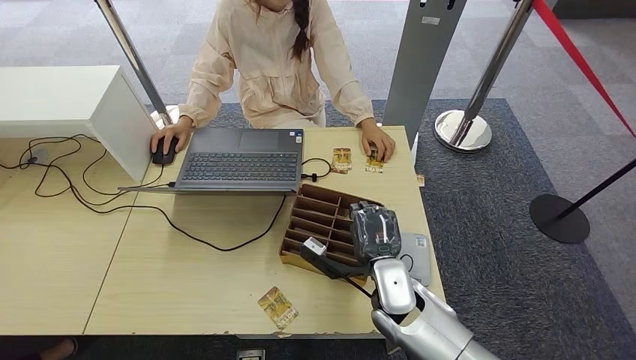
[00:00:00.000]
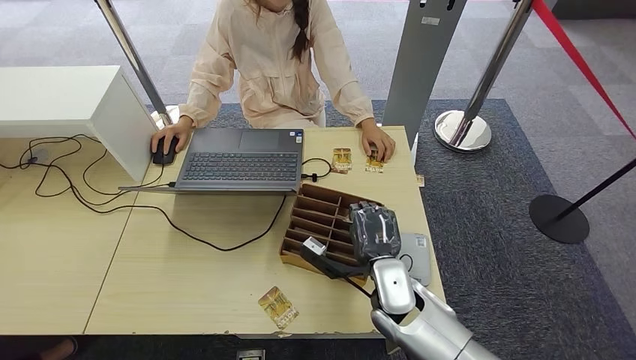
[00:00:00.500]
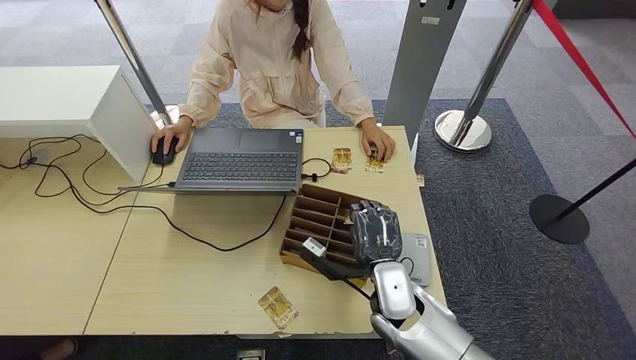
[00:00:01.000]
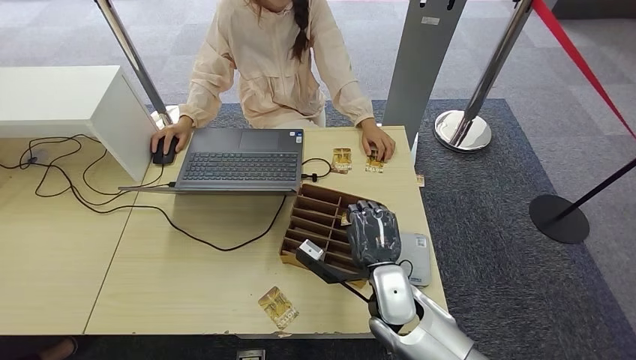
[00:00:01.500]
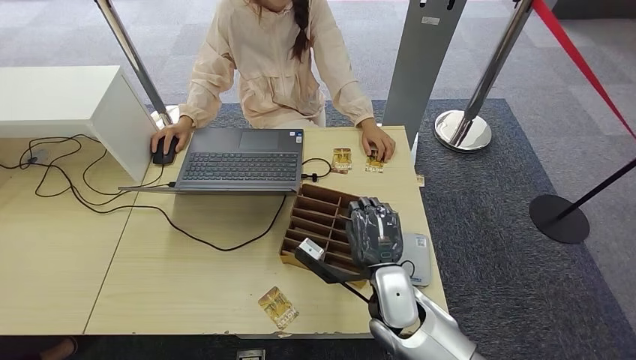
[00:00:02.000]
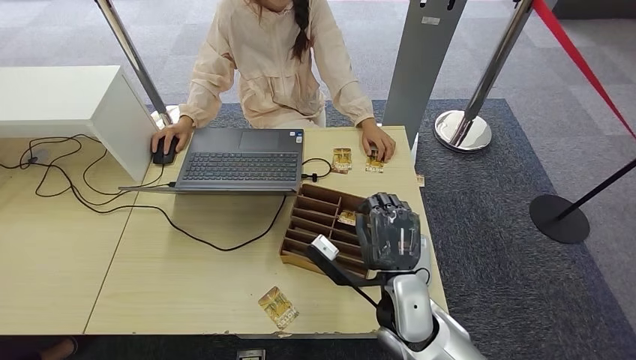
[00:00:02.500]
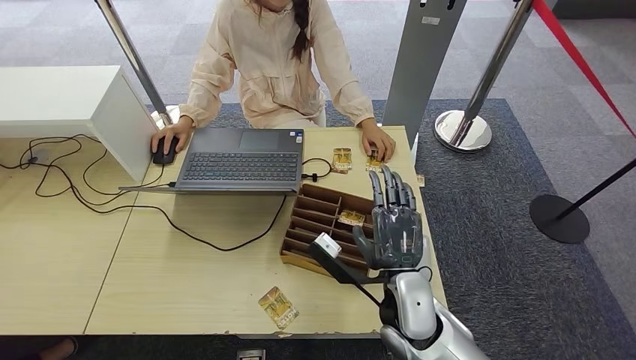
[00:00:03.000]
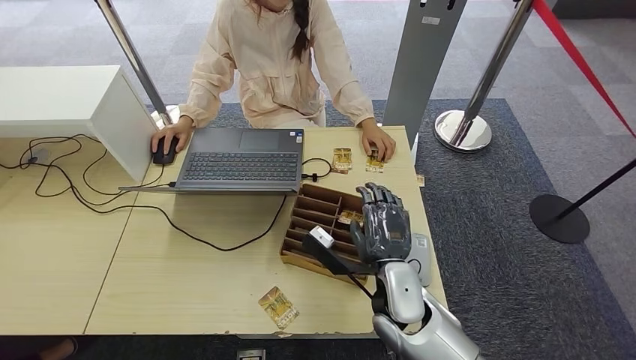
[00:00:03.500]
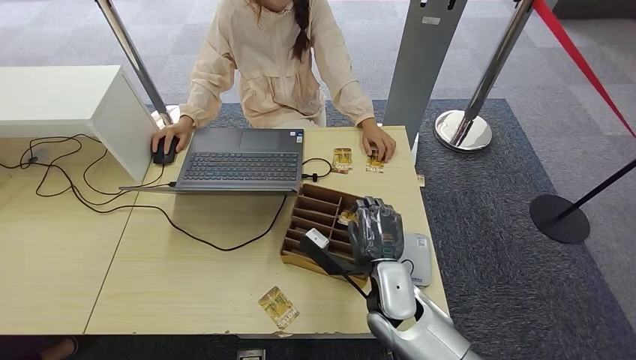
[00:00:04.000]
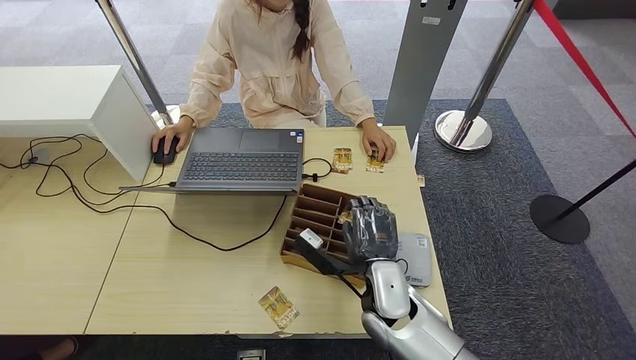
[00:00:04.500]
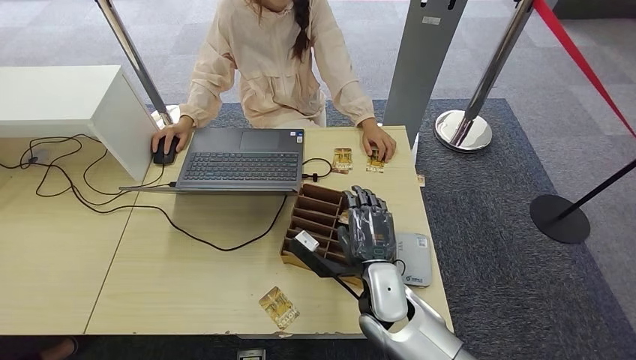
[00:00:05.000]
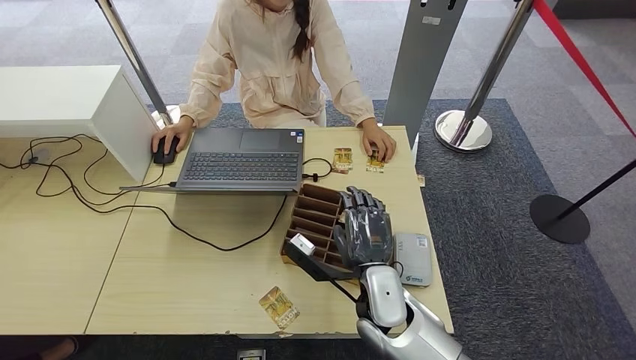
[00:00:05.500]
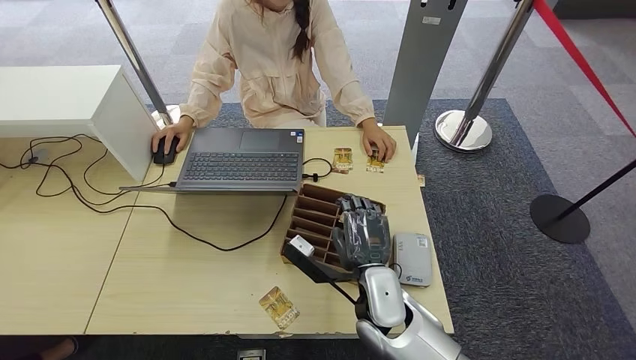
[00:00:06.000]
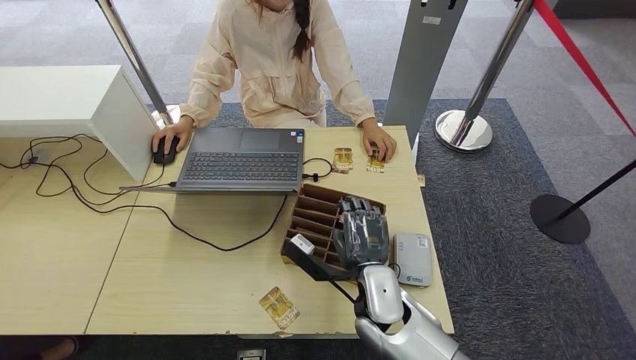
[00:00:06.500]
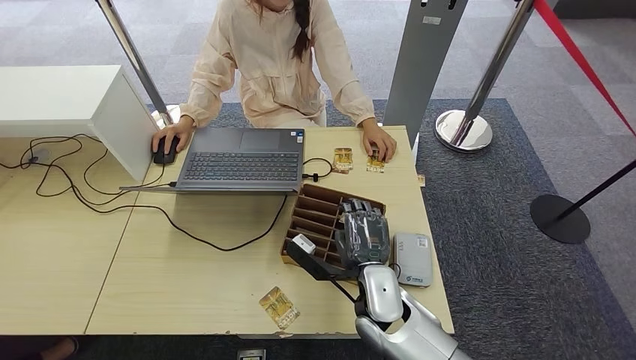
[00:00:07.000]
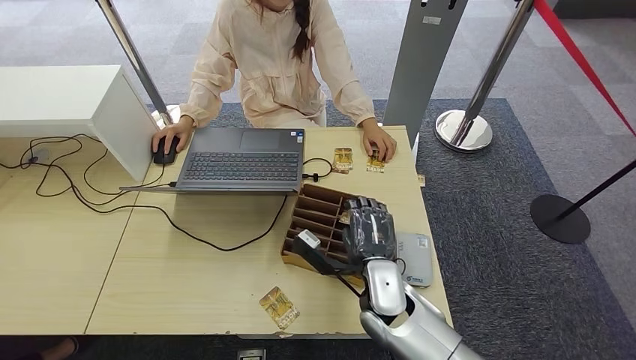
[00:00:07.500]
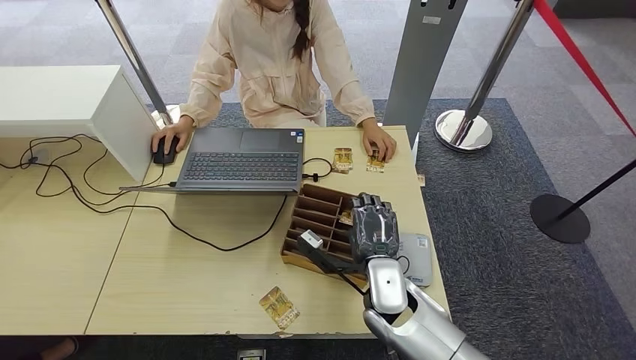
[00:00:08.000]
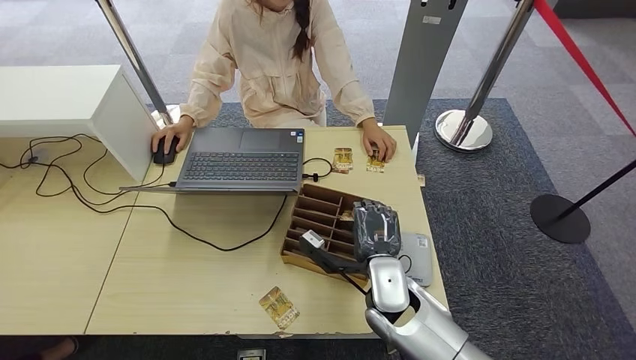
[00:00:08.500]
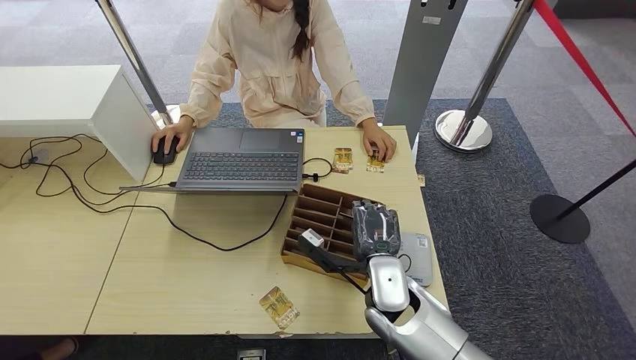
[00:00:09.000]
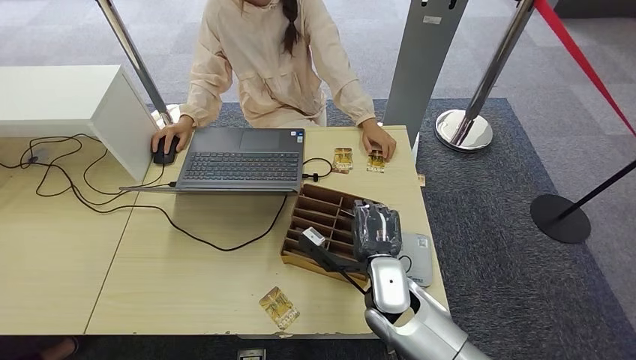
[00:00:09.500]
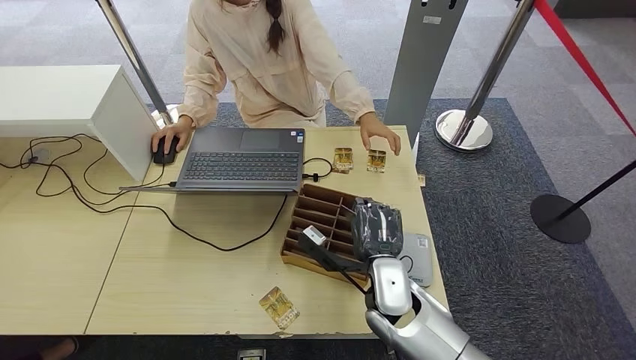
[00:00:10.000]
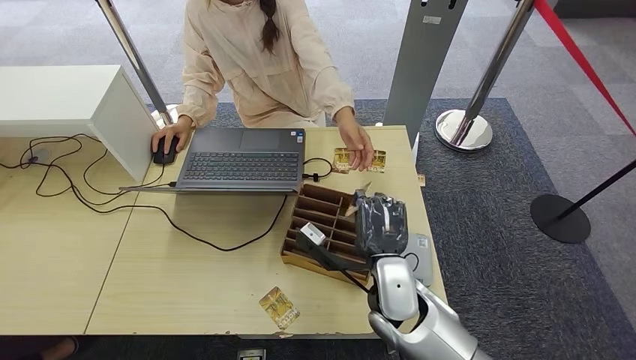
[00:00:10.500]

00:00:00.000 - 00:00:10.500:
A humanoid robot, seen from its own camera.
Step, 00:00:00.000 - 00:00:10.500: Pick up the room key from the key card box.
00:00:00.000 - 00:00:02.000: There are only small adjustments of the hands.
00:00:02.000 - 00:00:08.500: The hands move only a little.
00:00:08.500 - 00:00:10.500: There are only small adjustments of the hands.

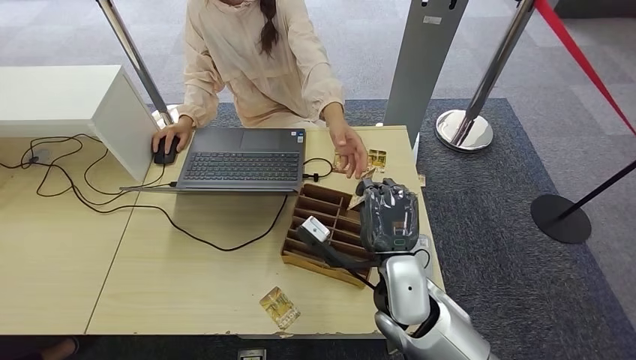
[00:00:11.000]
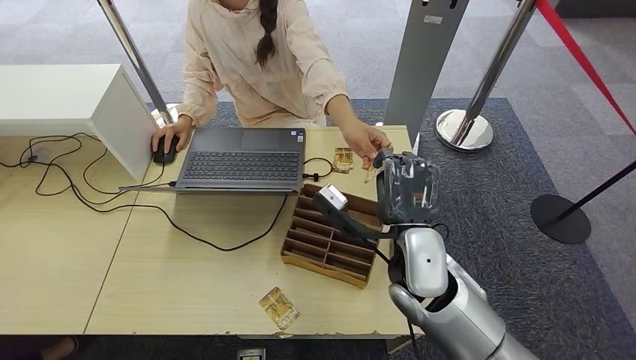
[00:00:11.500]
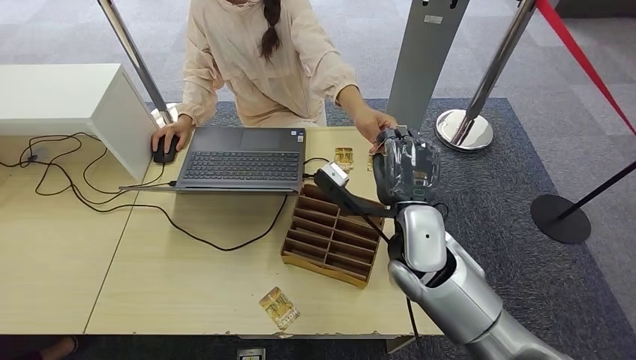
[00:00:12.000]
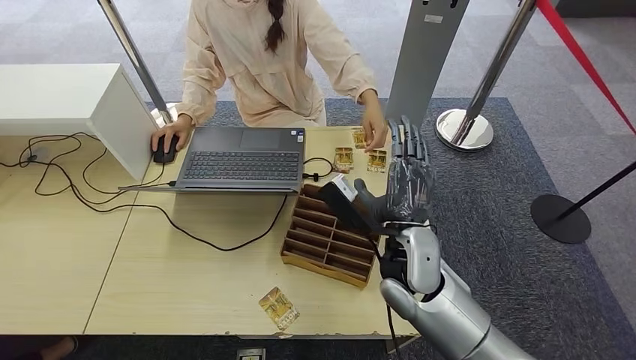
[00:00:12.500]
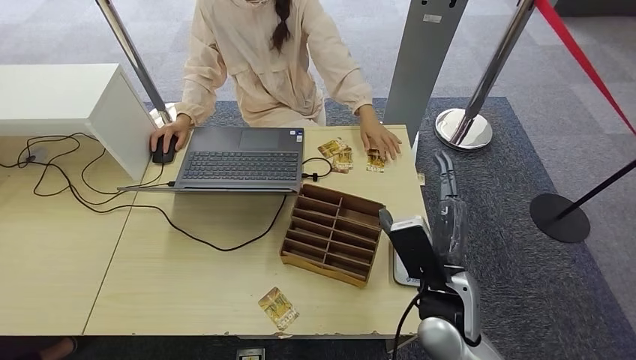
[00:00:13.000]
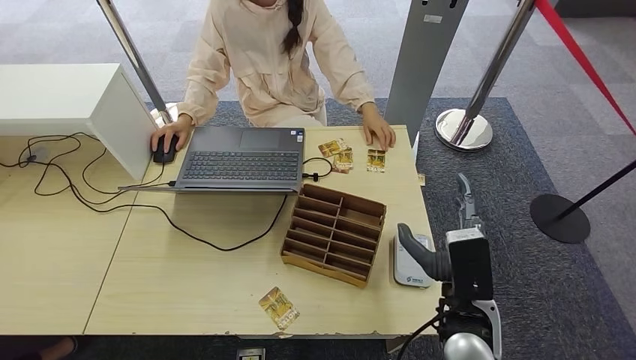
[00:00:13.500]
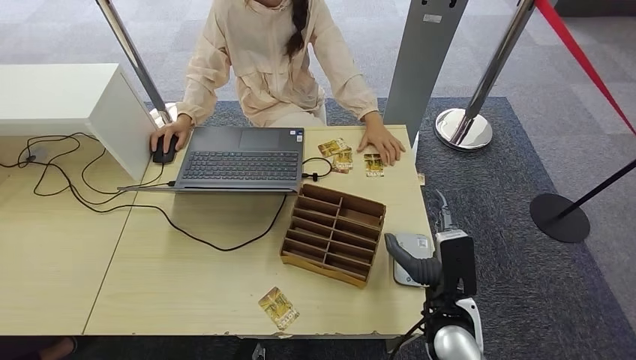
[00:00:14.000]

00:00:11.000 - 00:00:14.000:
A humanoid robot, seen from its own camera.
Step, 00:00:11.000 - 00:00:14.000: Hand the room key to the person.
00:00:12.500 - 00:00:14.000: The right hand moves backward, downward and to the right, some 15 cm.
